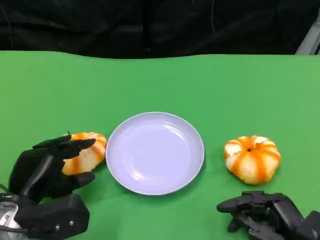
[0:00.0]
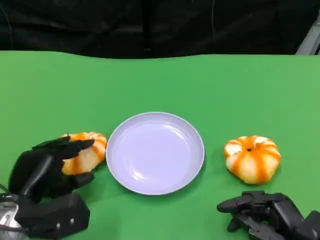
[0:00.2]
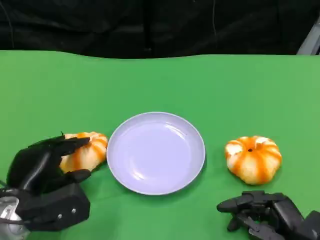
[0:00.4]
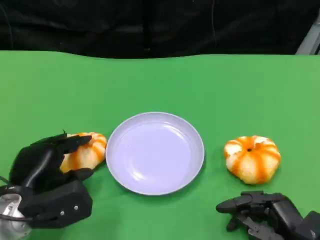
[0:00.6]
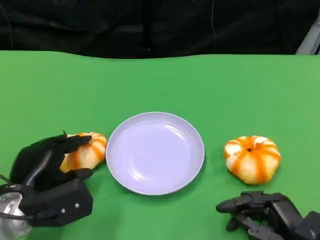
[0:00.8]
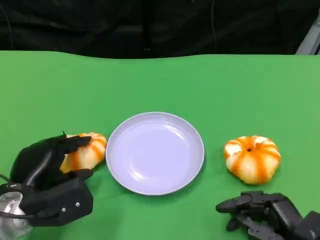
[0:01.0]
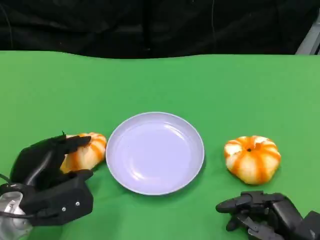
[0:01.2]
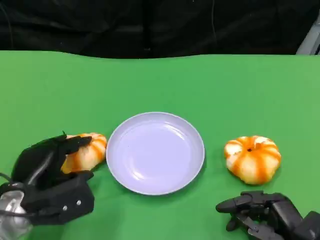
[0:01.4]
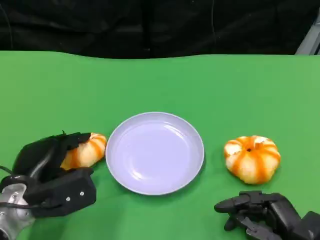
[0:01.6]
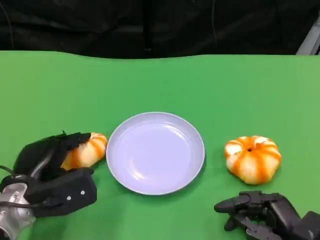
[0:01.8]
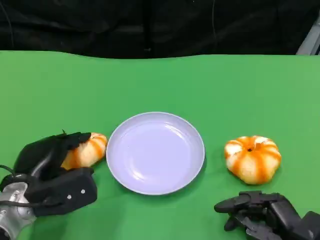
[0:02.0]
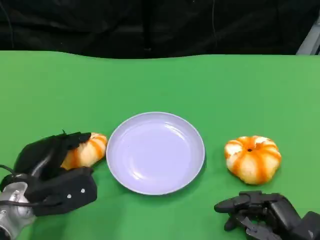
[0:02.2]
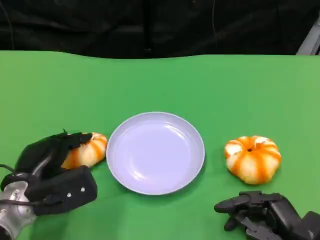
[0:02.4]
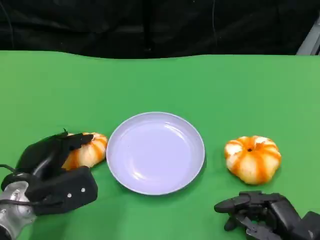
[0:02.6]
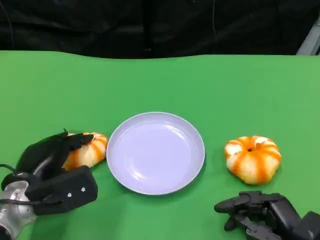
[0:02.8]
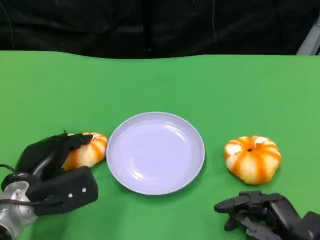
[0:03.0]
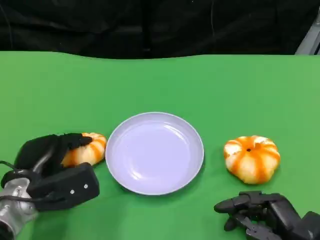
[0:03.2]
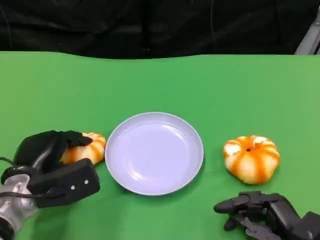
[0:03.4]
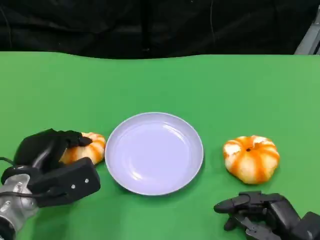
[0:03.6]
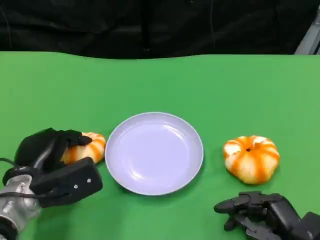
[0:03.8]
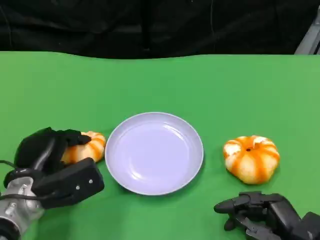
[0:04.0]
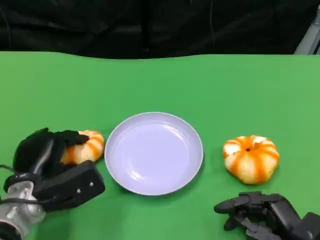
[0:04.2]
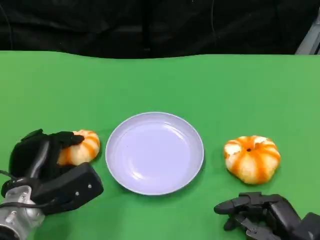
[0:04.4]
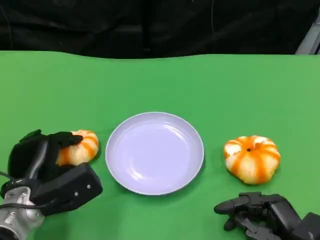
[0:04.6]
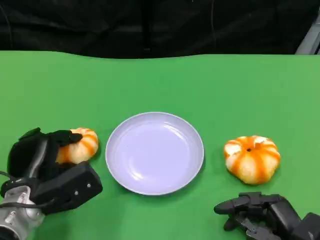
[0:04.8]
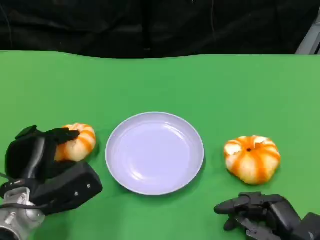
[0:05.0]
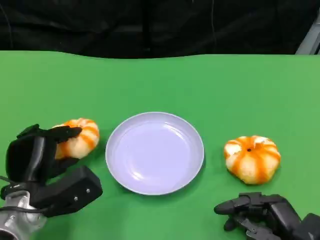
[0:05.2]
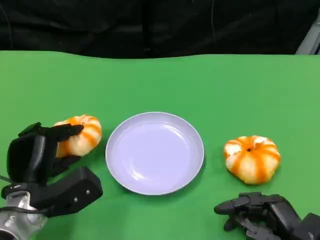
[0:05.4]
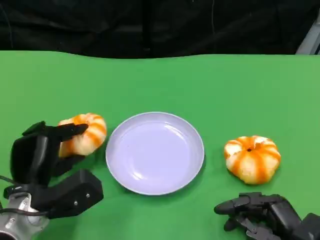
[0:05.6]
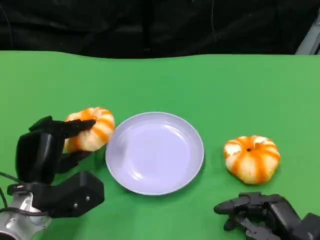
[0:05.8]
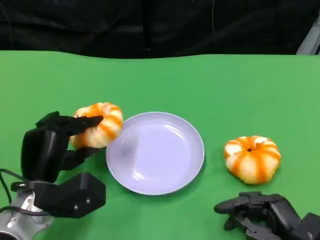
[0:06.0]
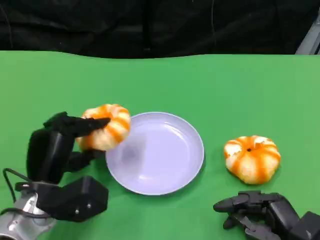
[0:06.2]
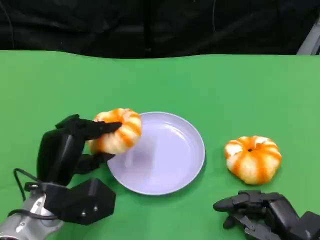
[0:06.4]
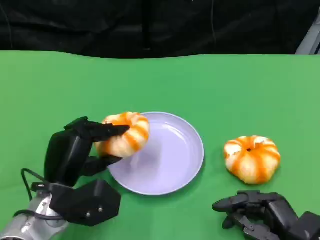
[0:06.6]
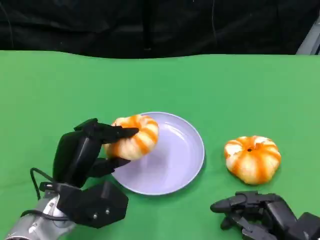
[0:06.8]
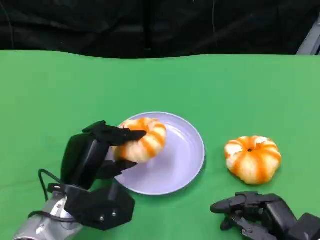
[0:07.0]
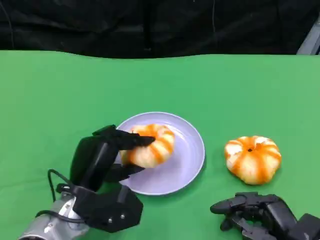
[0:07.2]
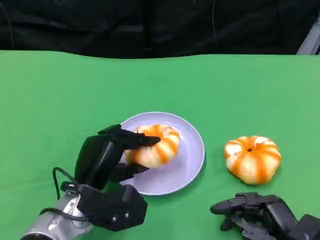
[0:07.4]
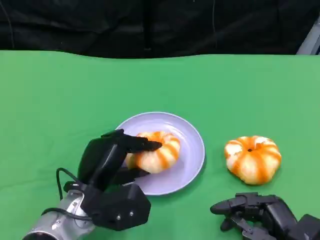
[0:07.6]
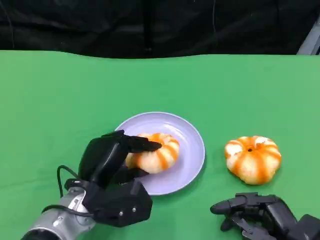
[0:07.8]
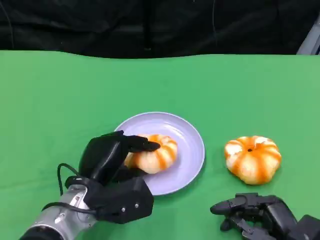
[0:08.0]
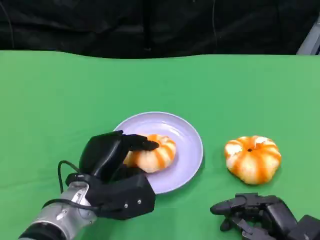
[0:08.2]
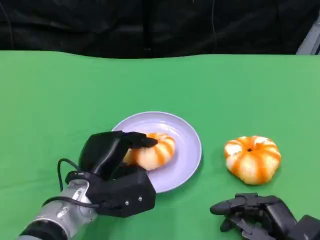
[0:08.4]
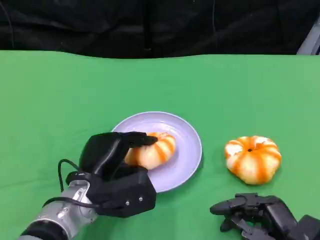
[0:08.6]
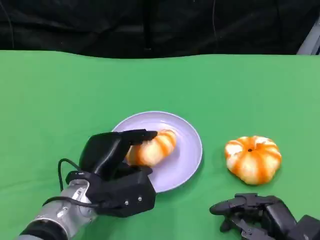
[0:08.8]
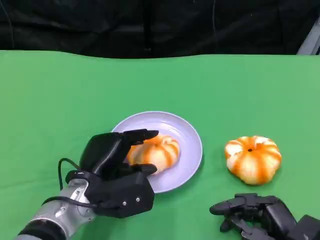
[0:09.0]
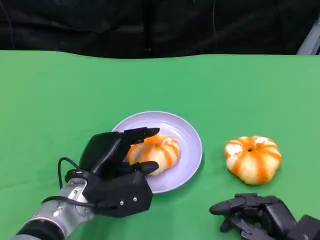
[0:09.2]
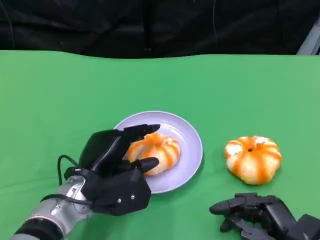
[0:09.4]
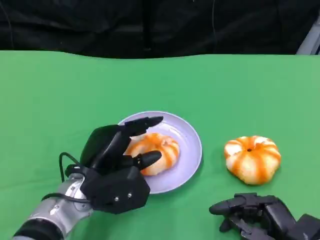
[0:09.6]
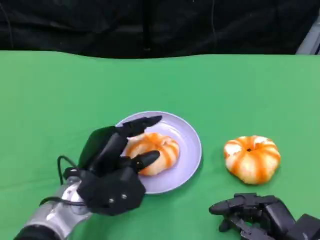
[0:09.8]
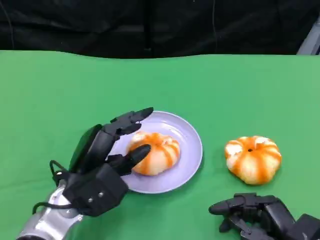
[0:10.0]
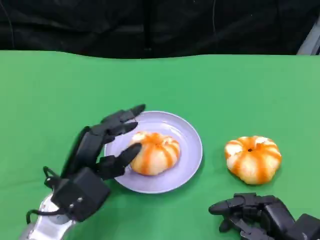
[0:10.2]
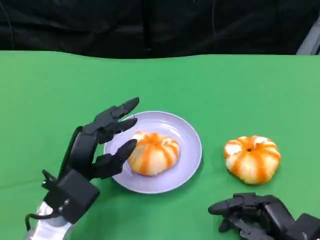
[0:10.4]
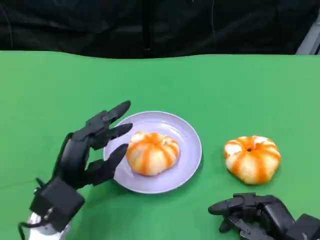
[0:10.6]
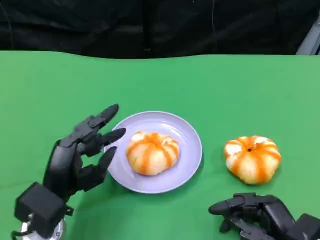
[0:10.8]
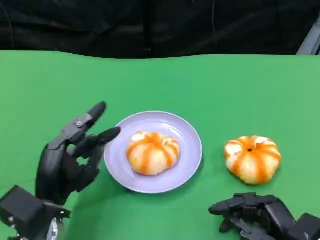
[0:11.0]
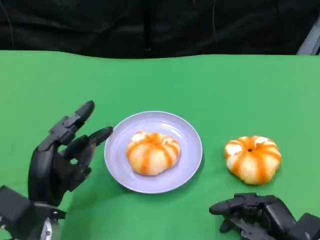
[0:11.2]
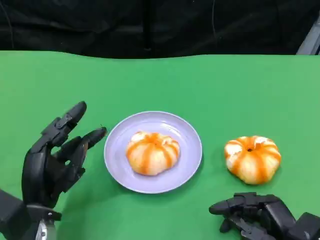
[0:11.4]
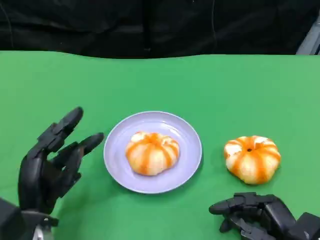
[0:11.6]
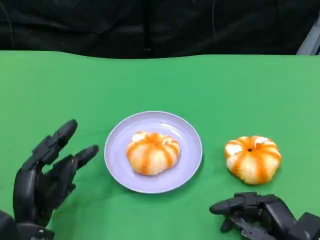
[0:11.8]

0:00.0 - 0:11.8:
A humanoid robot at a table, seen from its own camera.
Task of the whole recording: Grasp the bread from the table and place it into the plate.
0:00.0 - 0:04.4: There are only small adjustments of the hands.
0:06.0 - 0:07.4: The left hand goes approximately 5 cm to the right.
0:07.4 - 0:08.8: The hands make only small movements.
0:10.4 - 0:11.8: The left hand shifts by about 10 cm.

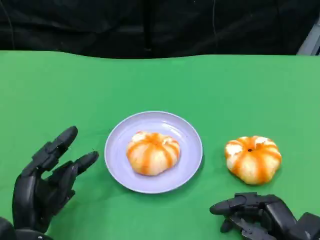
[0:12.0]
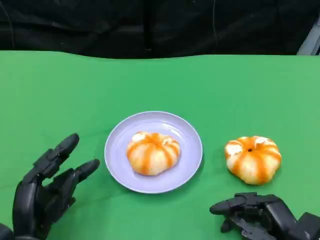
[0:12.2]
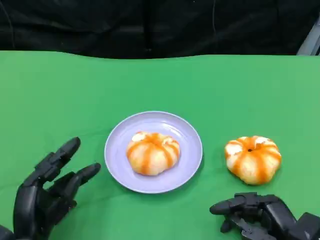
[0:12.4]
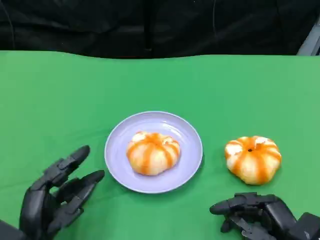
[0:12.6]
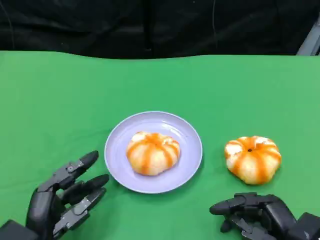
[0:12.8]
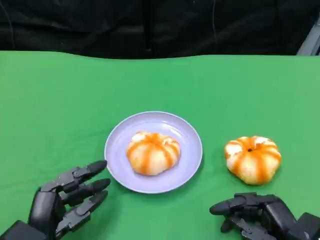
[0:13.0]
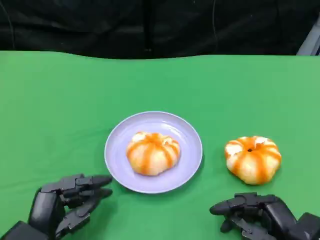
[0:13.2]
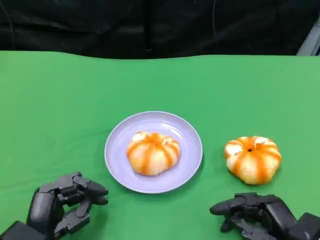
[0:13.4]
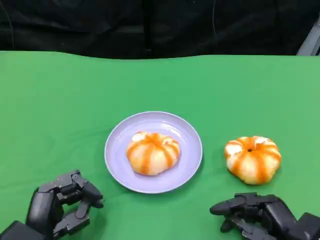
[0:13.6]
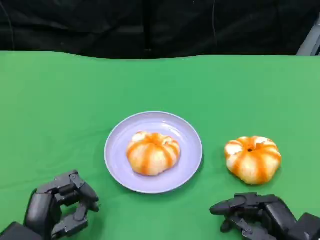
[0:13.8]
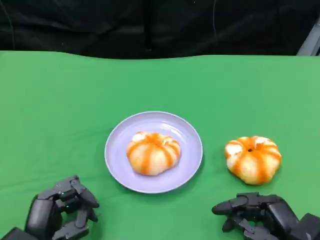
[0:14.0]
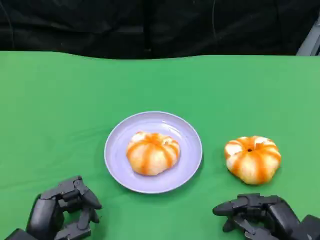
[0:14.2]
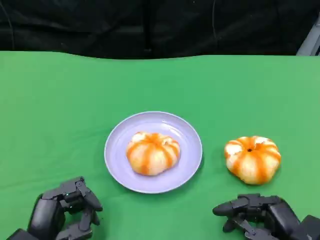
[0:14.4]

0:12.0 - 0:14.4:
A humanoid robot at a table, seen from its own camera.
Task of the whole recording: Grasp the bread from the table and place it into the plate.
0:12.0 - 0:13.2: The hands stay close to where they were, moving slightly.
0:13.2 - 0:14.4: The two hands keep their place.

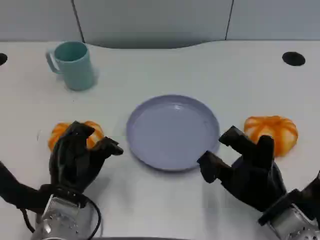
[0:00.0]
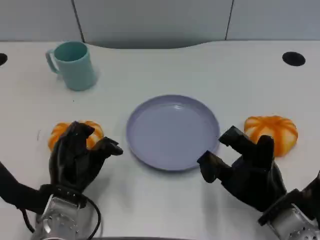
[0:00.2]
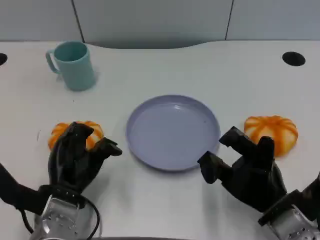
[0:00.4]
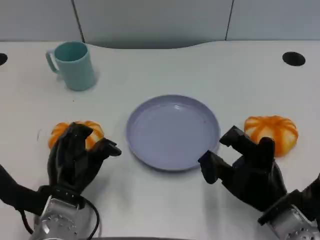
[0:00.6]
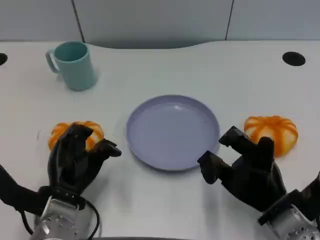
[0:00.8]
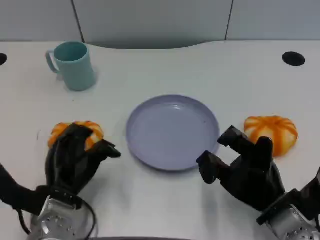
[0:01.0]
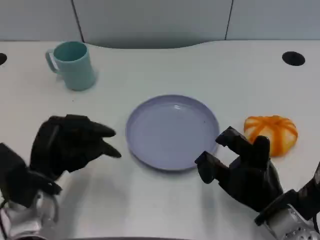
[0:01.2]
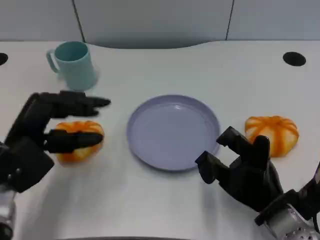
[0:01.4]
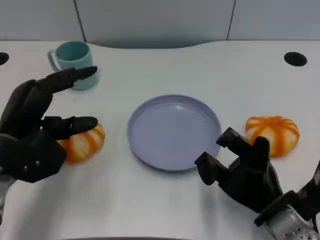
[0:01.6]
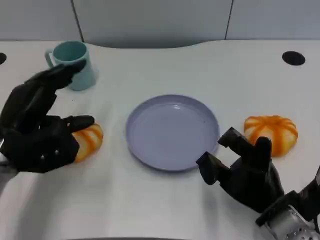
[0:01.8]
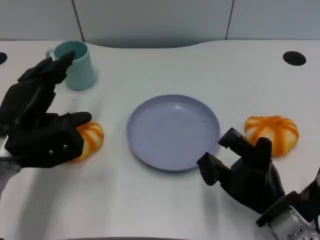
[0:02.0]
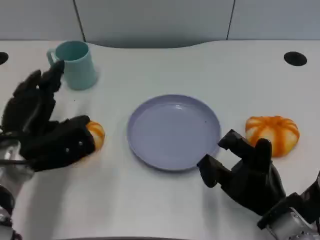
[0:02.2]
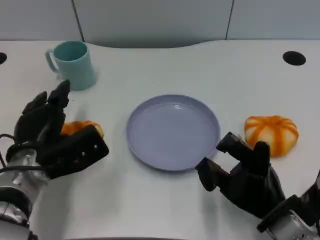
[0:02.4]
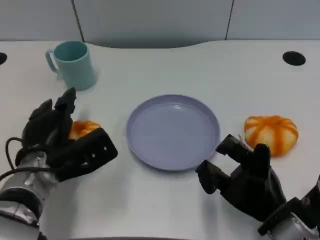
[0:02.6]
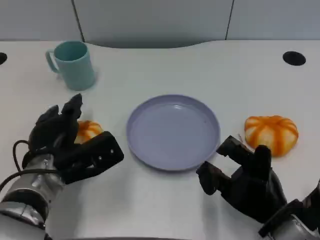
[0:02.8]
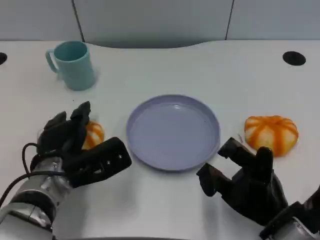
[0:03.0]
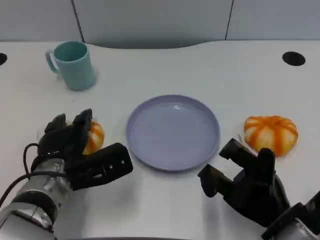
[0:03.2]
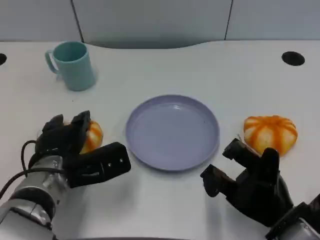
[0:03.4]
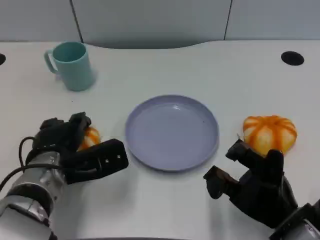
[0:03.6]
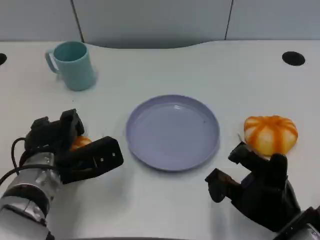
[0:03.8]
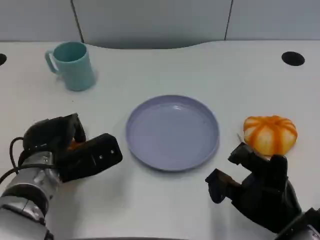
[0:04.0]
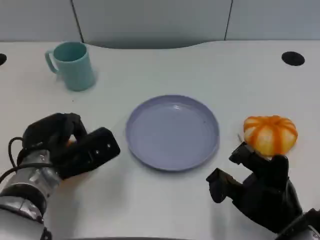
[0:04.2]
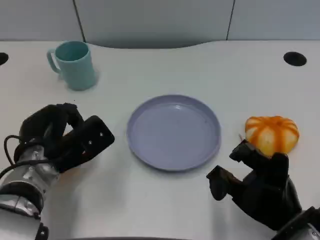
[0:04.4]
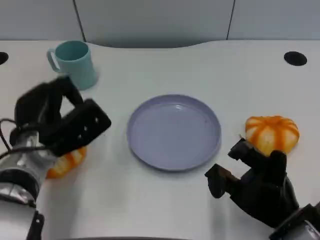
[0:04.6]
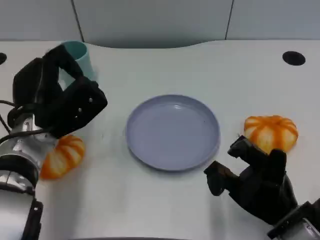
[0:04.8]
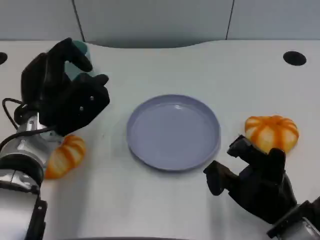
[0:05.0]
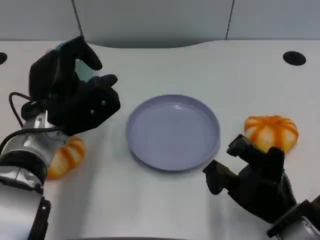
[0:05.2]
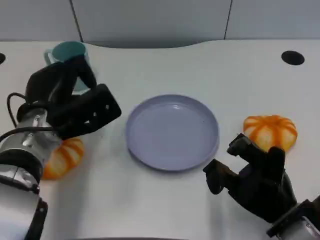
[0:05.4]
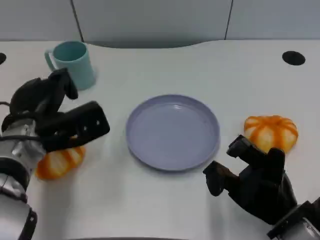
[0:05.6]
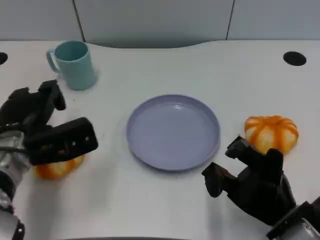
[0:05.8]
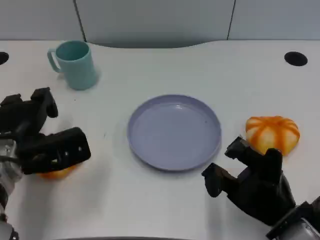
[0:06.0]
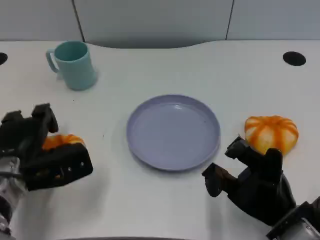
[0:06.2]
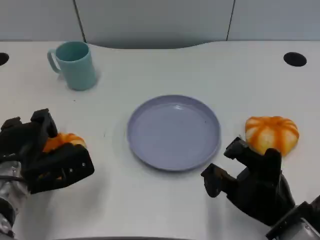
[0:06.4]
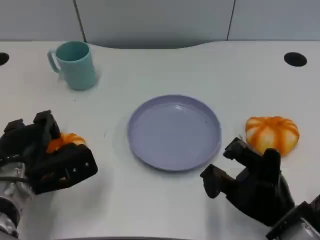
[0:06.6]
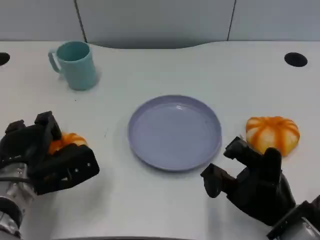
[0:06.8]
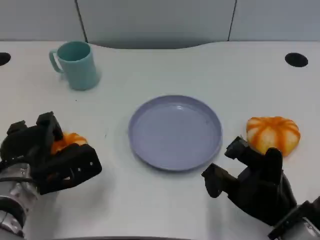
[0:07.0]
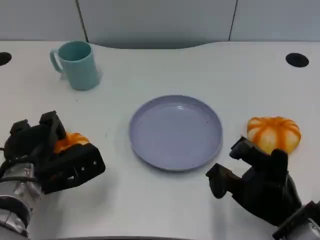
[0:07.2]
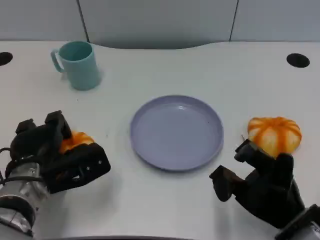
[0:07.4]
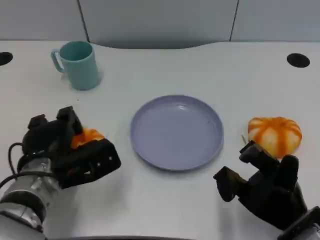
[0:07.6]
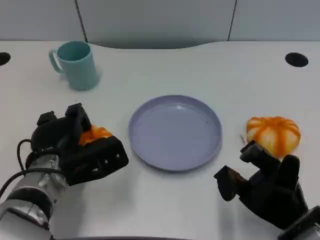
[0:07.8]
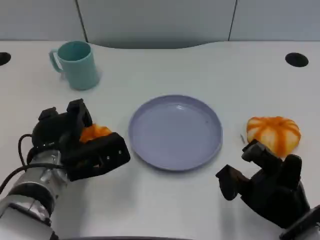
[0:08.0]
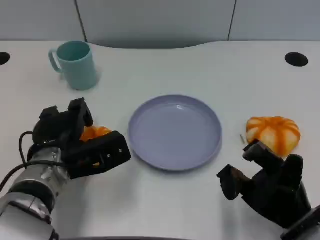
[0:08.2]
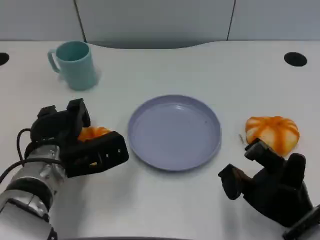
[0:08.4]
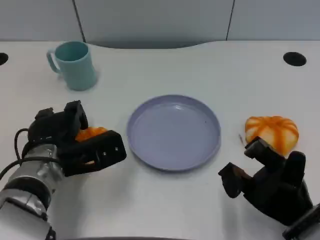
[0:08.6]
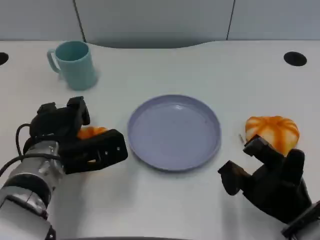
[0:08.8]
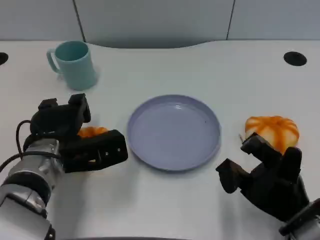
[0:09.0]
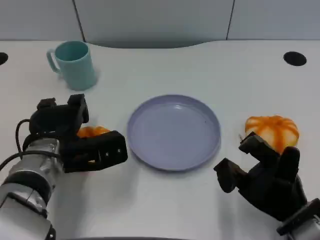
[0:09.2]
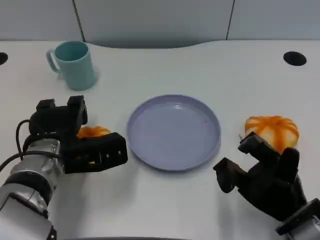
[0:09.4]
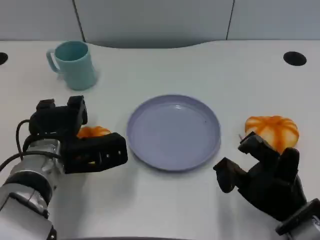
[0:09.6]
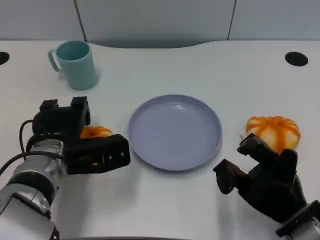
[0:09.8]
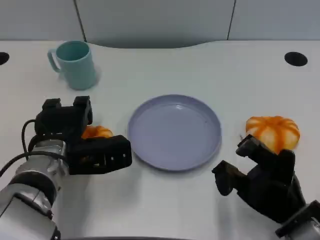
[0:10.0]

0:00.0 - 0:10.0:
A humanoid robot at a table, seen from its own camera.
Task of the whole recording: Grasp the bread from the table and place it into the plate.
0:00.0 - 0:01.4: The left hand goes approximately 10 cm upward and to the left.
0:01.4 - 0:02.8: The left hand heads downward and to the right, covering about 10 cm.
0:02.8 - 0:04.2: The hands stay close to where they were, moving slightly.
0:04.2 - 0:05.8: The left hand changes place by roughly 5 cm.
0:05.8 - 0:07.2: The left hand ends up some 5 cm from where it was.
0:08.6 - 0:10.0: The hands make only small movements.
